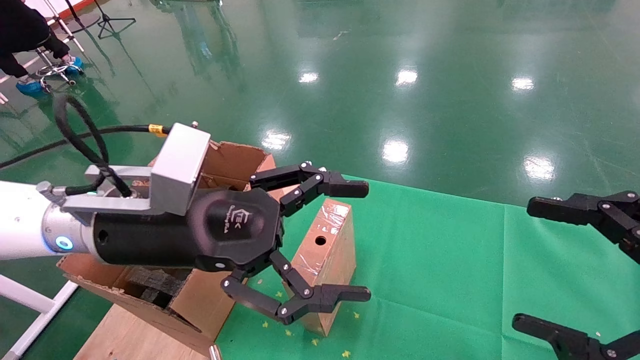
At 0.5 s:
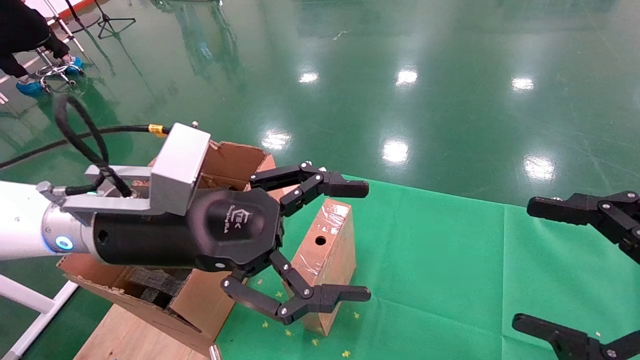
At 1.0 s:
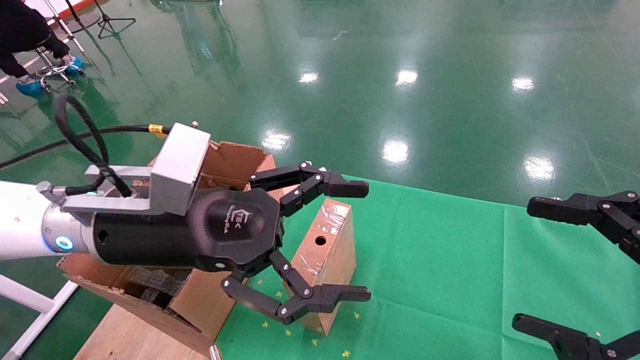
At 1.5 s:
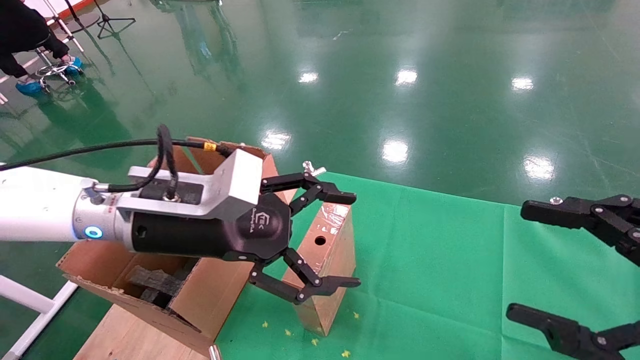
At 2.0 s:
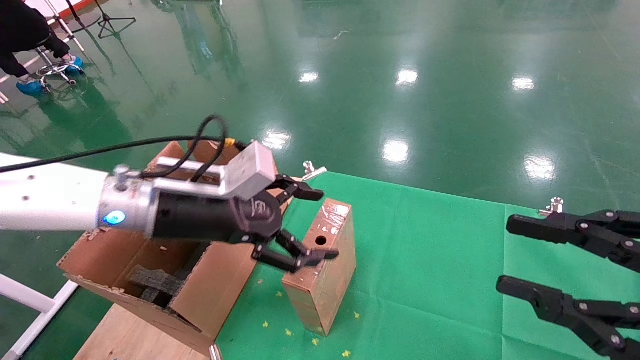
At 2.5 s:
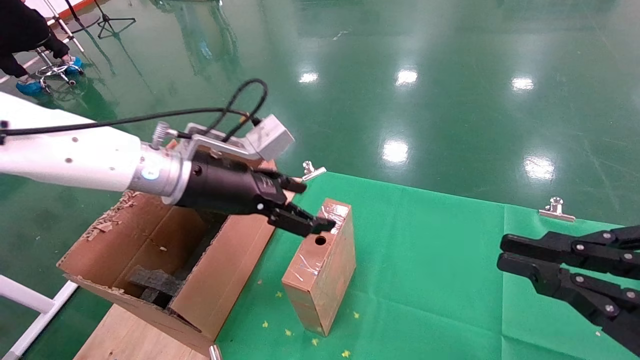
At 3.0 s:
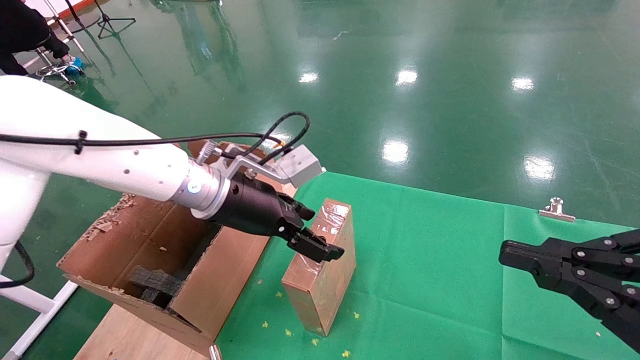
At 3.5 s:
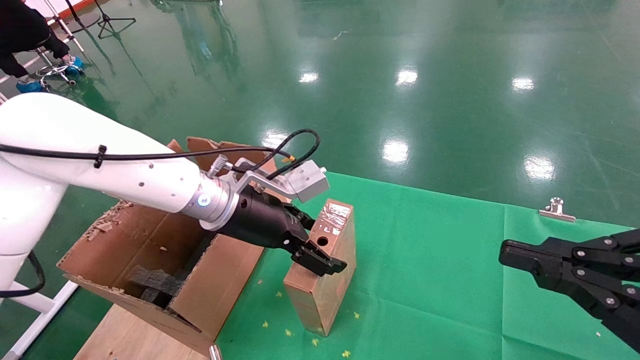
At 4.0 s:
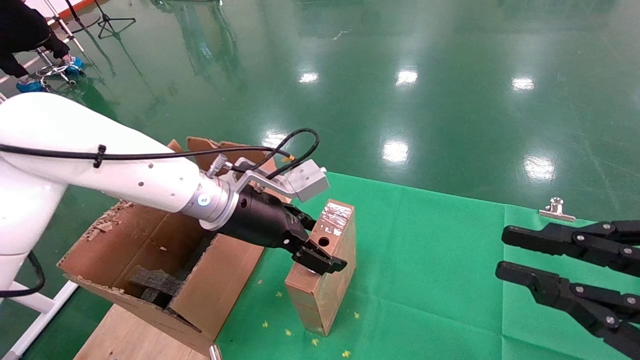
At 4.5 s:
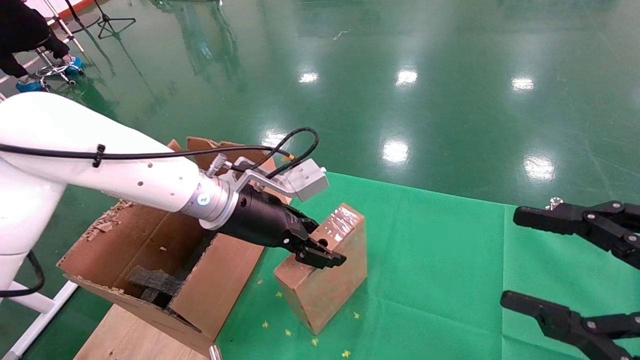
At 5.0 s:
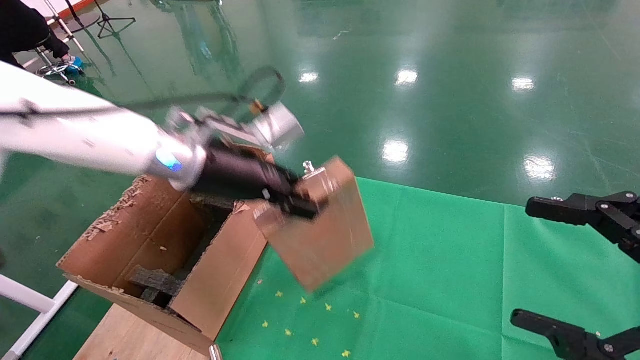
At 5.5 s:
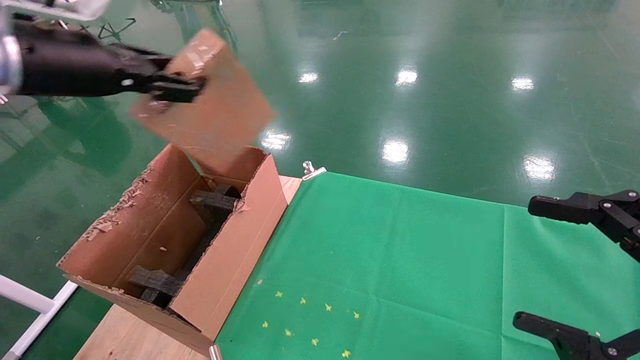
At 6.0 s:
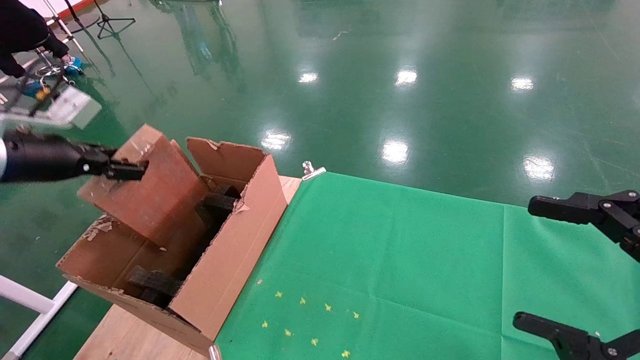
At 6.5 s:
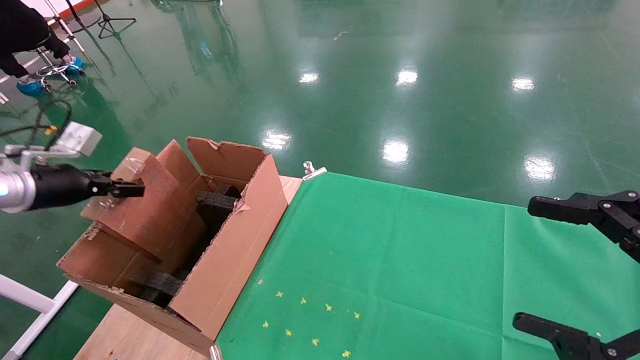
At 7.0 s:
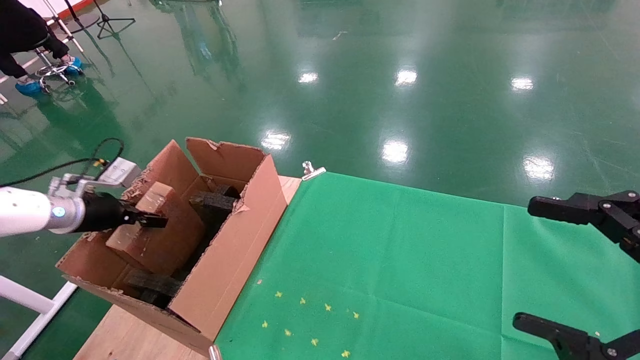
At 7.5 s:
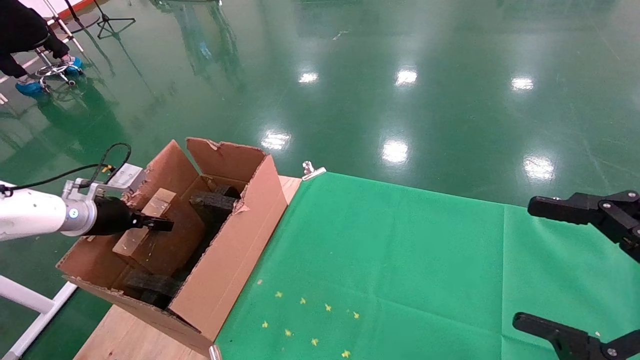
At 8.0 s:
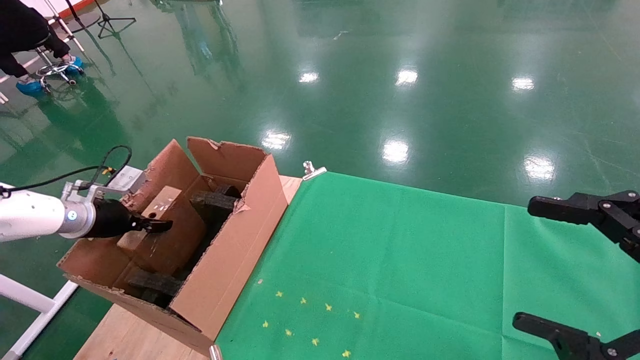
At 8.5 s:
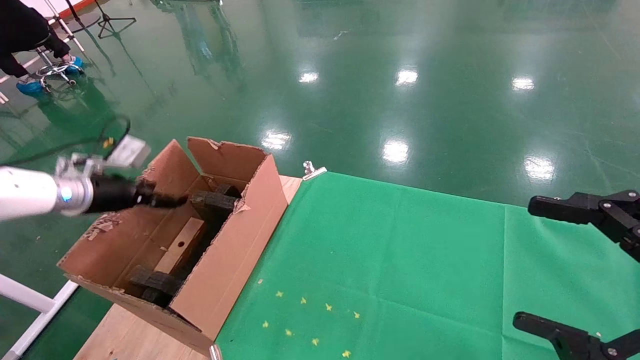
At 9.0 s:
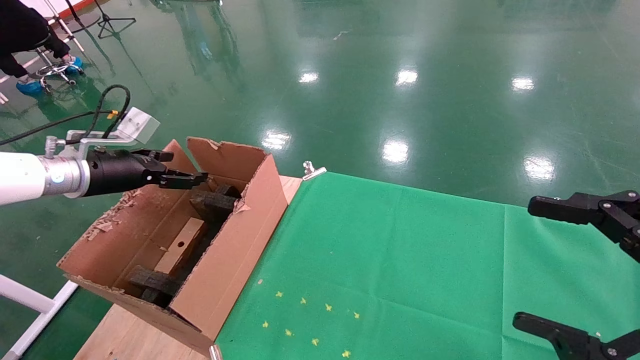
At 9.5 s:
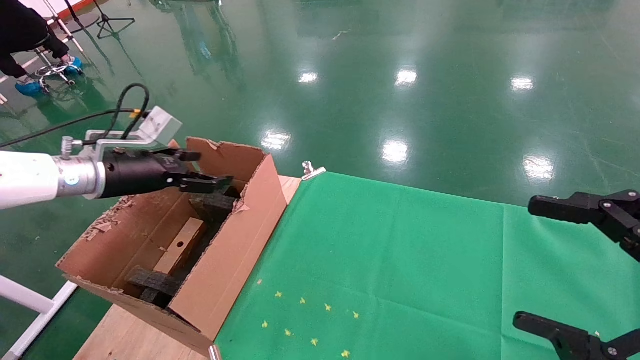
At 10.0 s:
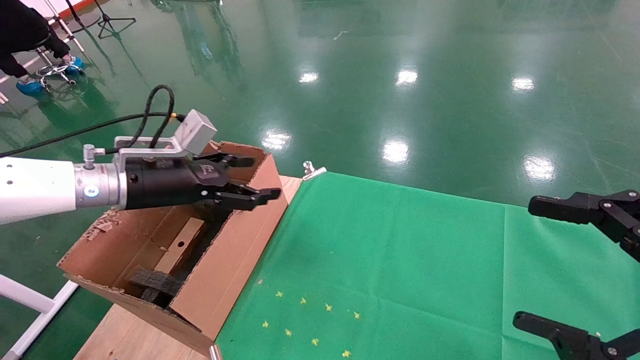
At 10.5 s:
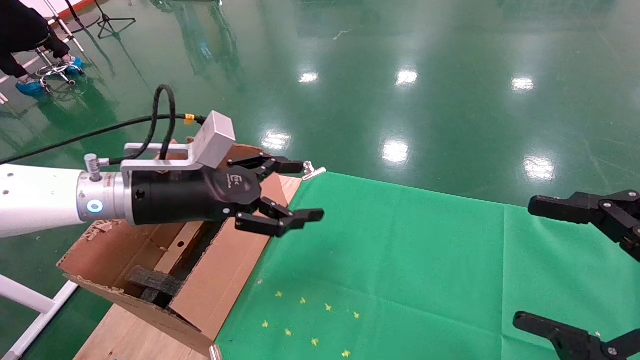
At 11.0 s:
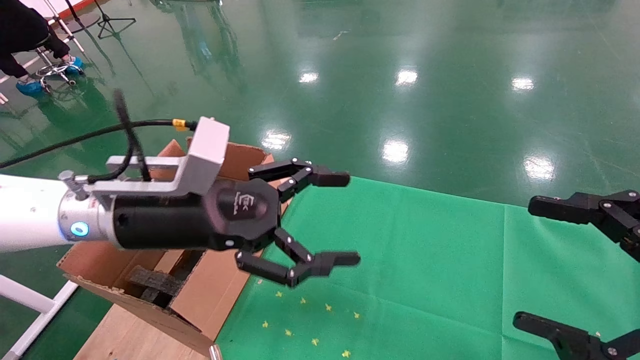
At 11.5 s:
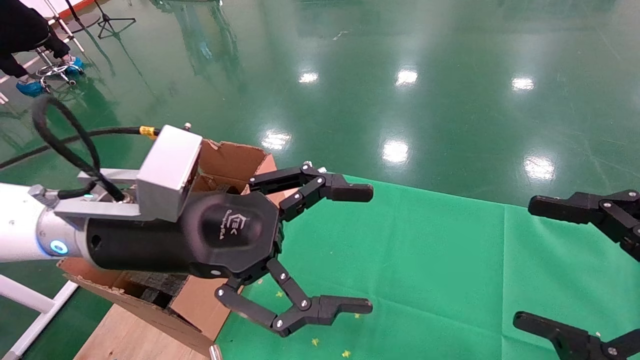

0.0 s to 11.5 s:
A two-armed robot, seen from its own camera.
Task of the whole recording: using a robotic arm to pick up a cardboard box and palace it the carton.
Step, 1.5 to 5.0 s: Pick up the mouse and the power cord paper box.
Step, 5.5 to 8.0 s: Place the mouse and the power cord paper box into the container.
0.0 to 2.0 s: The right gripper closes up. The left gripper travels forward by some 5 cm.
2.0 to 4.0 s: The right gripper closes its fingers. The left gripper moves approximately 5 cm.
4.0 to 6.0 s: The left gripper moves to the left, approximately 30 cm, and closes; the right gripper opens up.
6.0 to 7.5 s: The left gripper heads downward and forward, covering some 15 cm.
7.5 to 9.5 s: The left gripper is displaced to the right and upward by some 15 cm, and opens its fingers.
9.5 to 11.5 s: The left gripper shifts roughly 25 cm to the right and backward.

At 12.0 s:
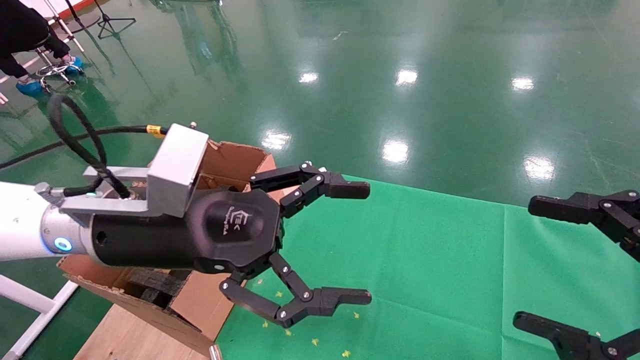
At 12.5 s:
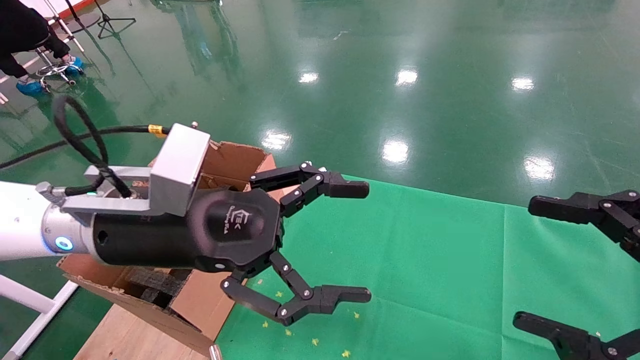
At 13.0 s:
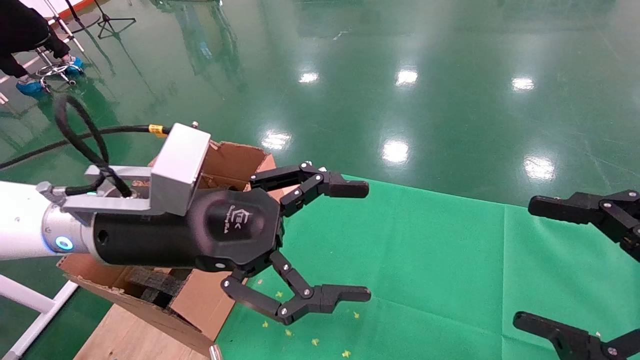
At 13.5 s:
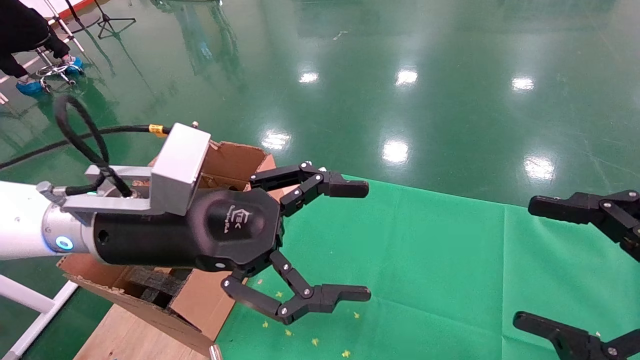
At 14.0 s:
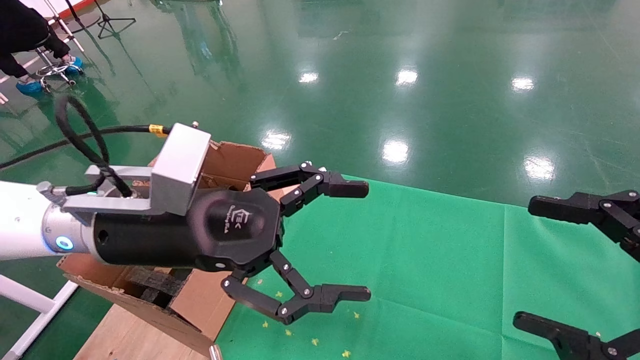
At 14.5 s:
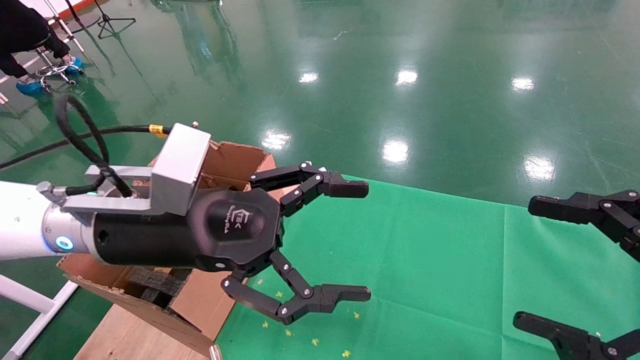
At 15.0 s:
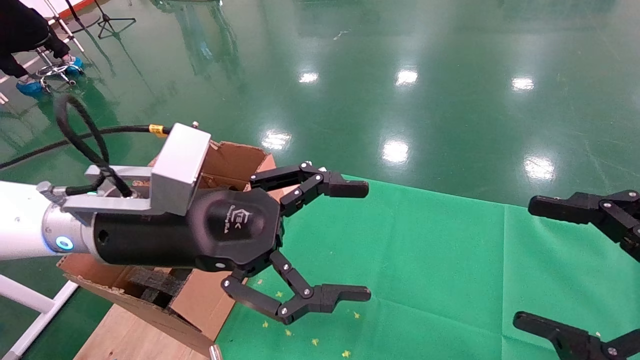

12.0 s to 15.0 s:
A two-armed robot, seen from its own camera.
Task of the whole recording: using a robotic arm to pick up a cardboard box and palace it the carton.
12.0 to 15.0 s: Both grippers stay put.

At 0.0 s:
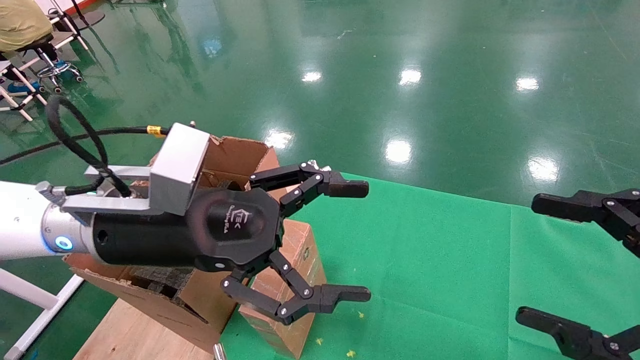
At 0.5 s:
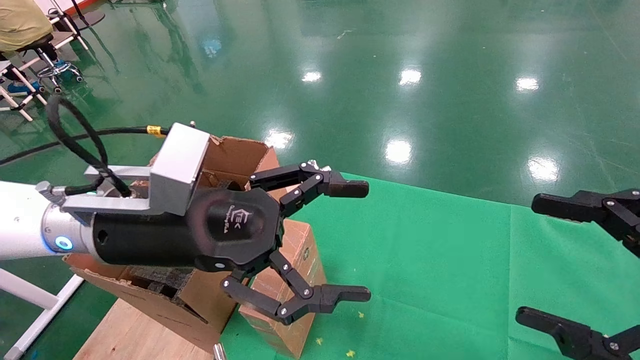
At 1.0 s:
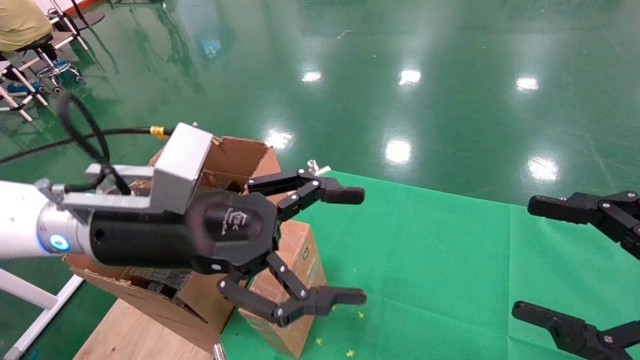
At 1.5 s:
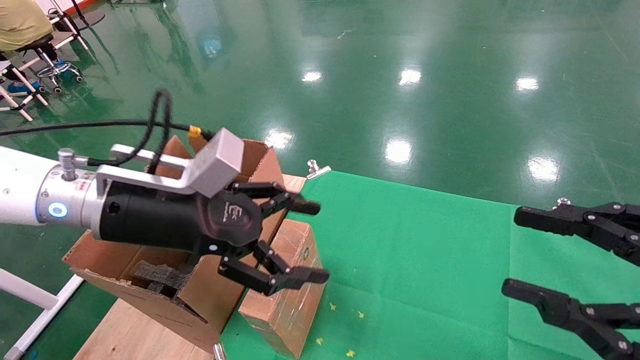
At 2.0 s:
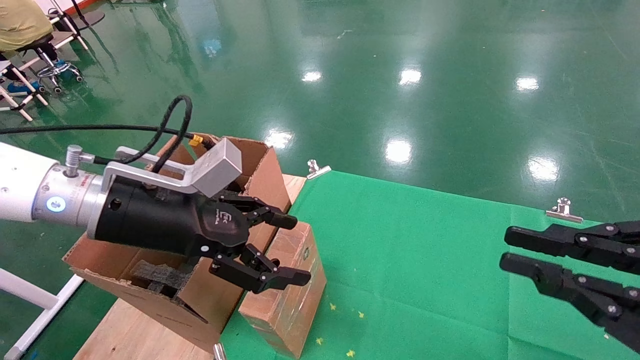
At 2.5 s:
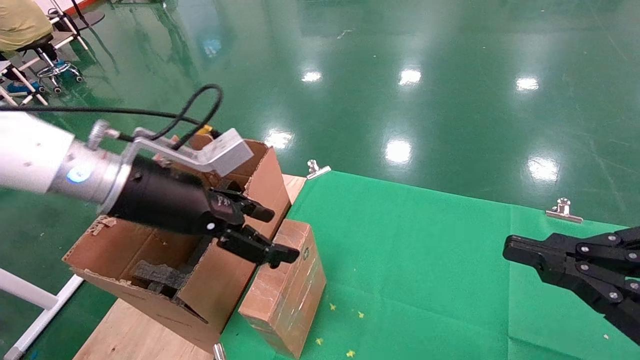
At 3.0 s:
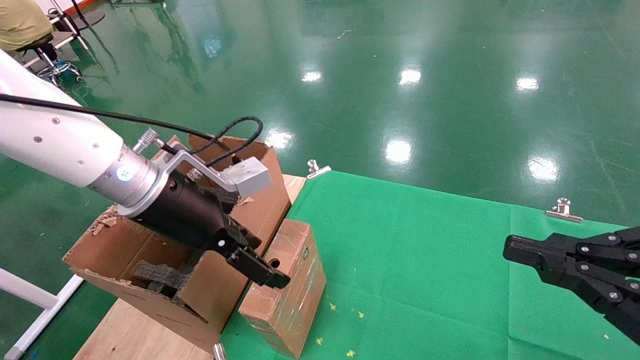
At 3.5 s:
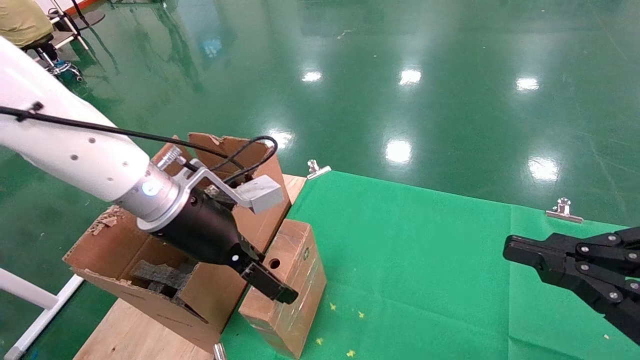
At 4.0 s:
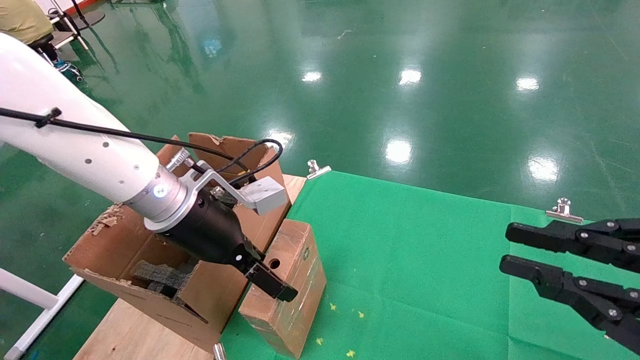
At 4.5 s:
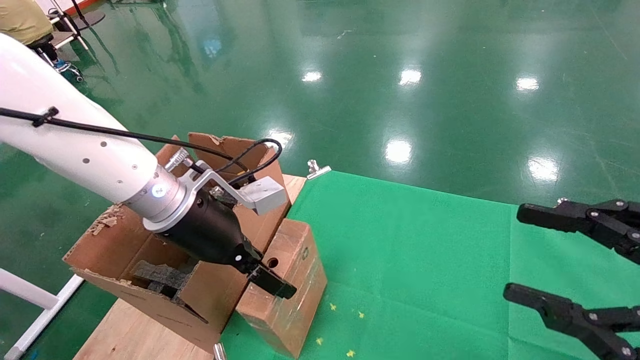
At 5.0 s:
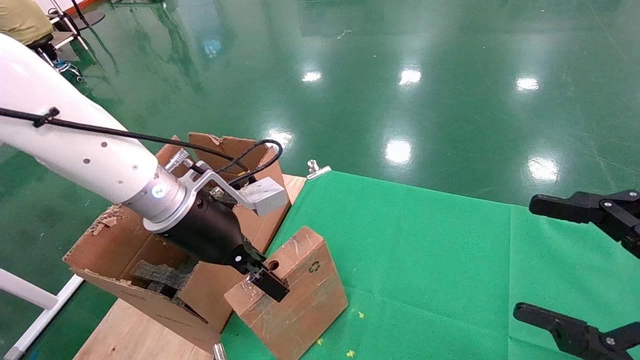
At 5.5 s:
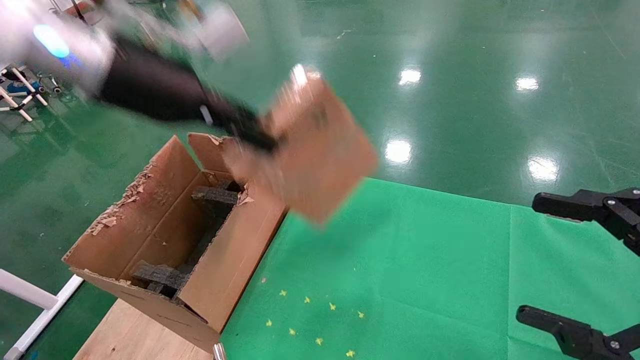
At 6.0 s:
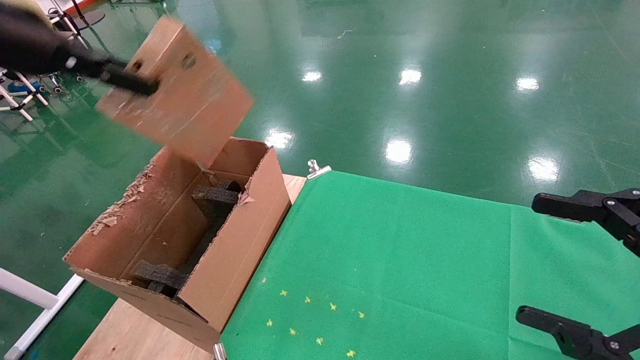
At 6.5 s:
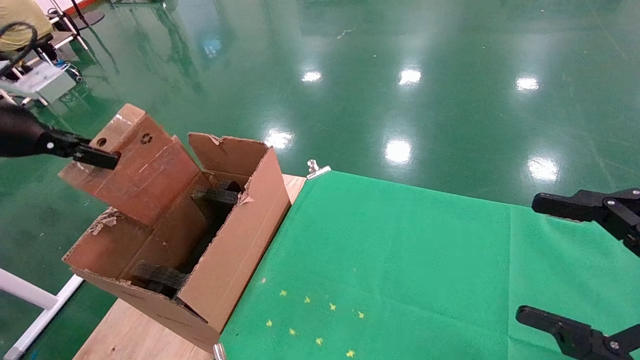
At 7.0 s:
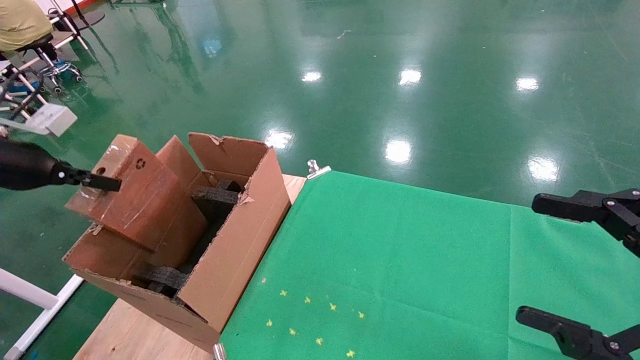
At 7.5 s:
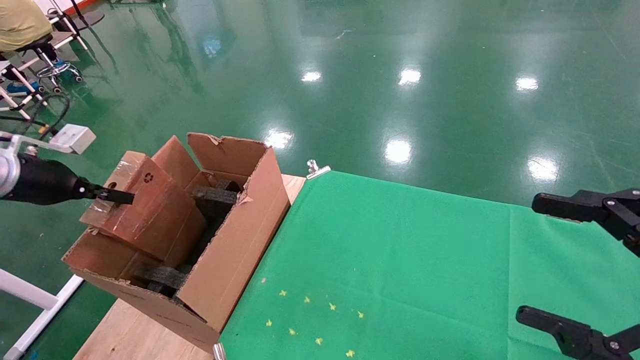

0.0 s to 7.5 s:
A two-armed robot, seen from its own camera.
Task of the whole recording: using a robotic arm to pick up a cardboard box and palace it the carton.
Step, 1.5 to 4.5 s: Pick up the mouse and the power cord paper box.
0.0 to 2.0 s: The right gripper closes up. The left gripper ends up some 5 cm from where it was.
2.0 to 4.0 s: The left gripper is displaced forward by some 5 cm.
4.0 to 5.5 s: The right gripper opens up. Meanwhile the left gripper moves upward, some 15 cm, and closes.
5.5 to 7.5 s: The left gripper is displaced to the left and downward by about 30 cm.
